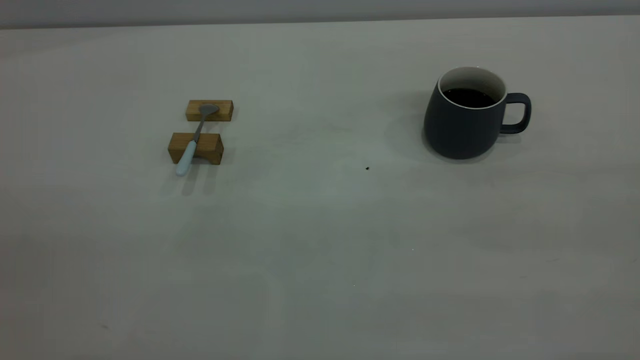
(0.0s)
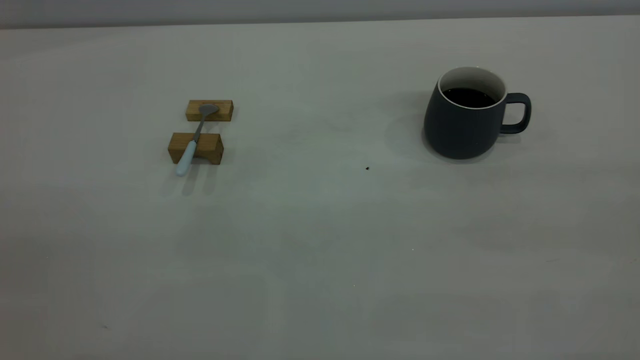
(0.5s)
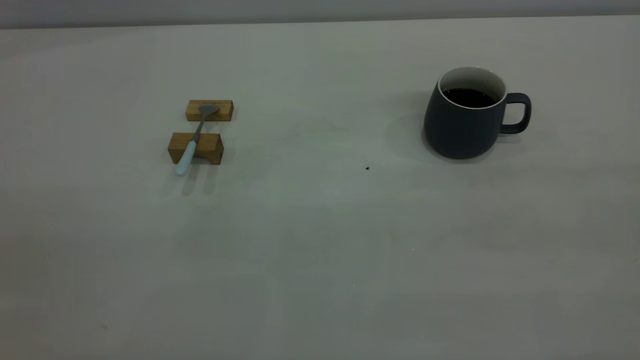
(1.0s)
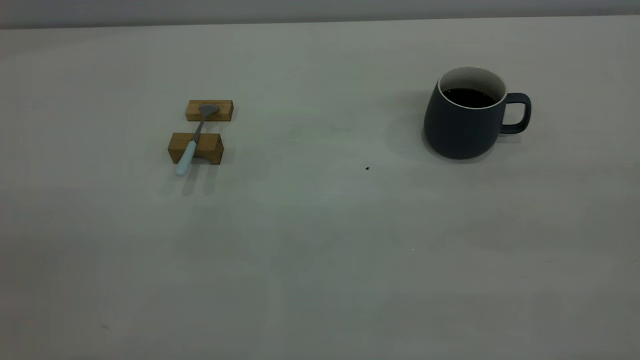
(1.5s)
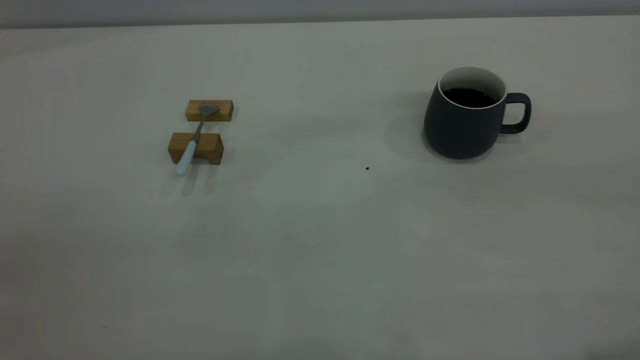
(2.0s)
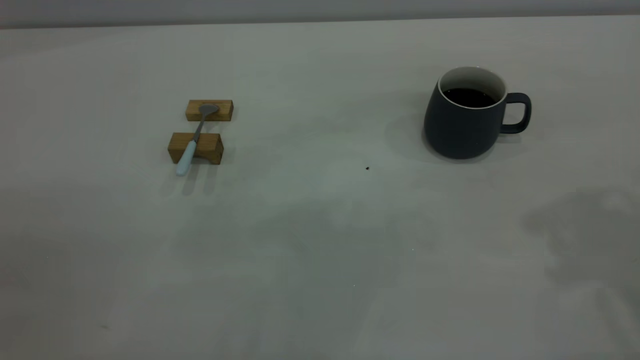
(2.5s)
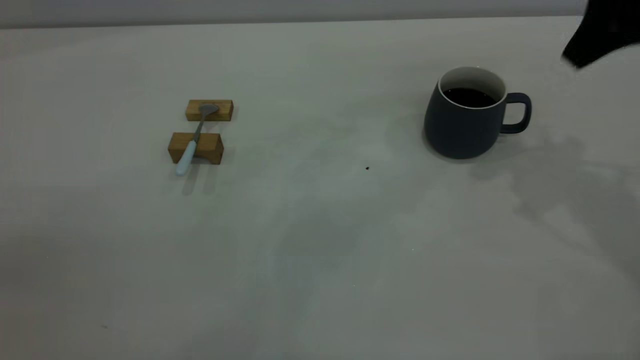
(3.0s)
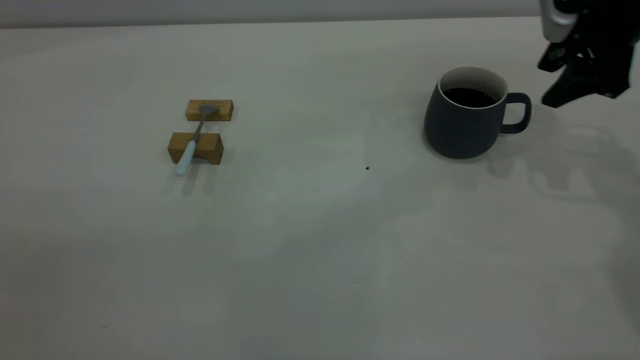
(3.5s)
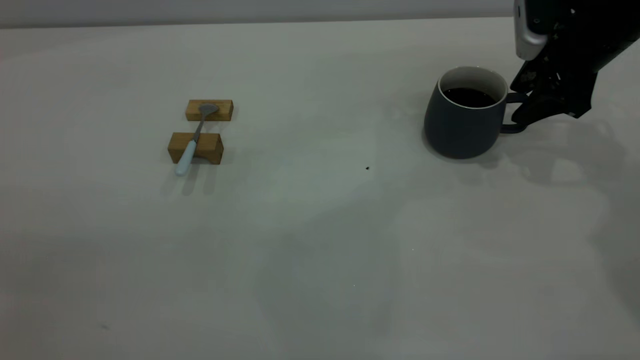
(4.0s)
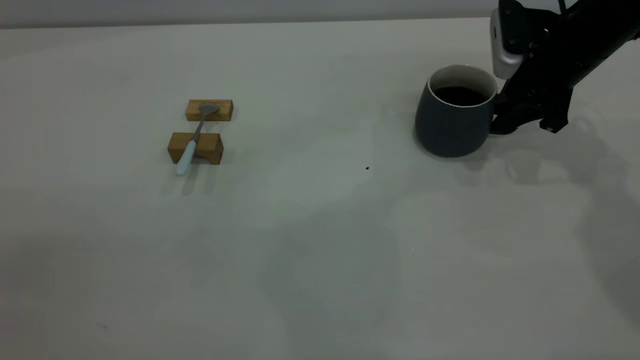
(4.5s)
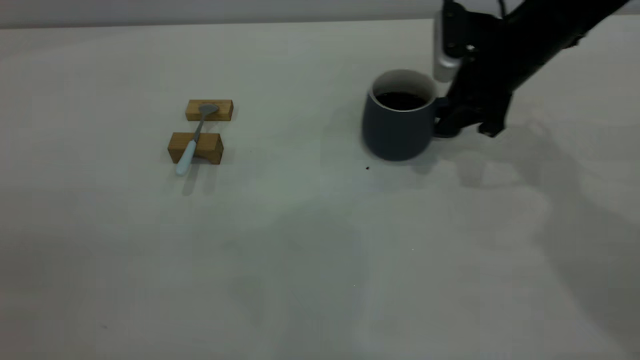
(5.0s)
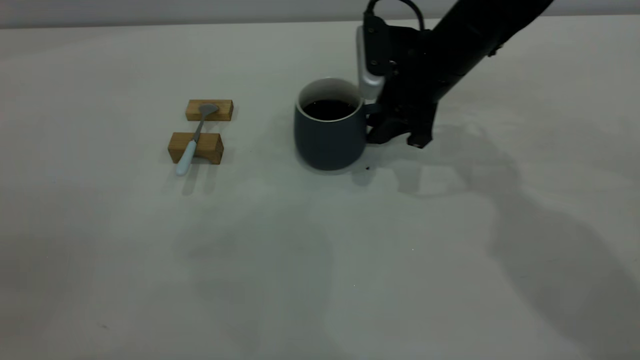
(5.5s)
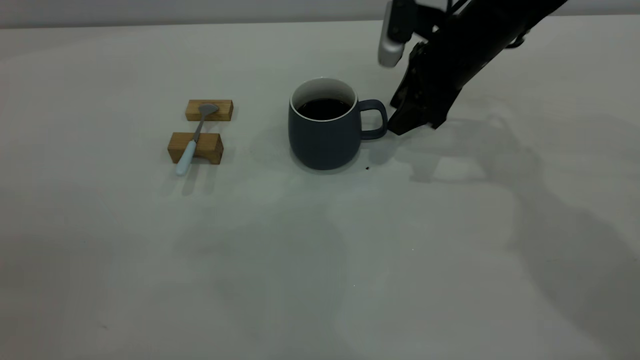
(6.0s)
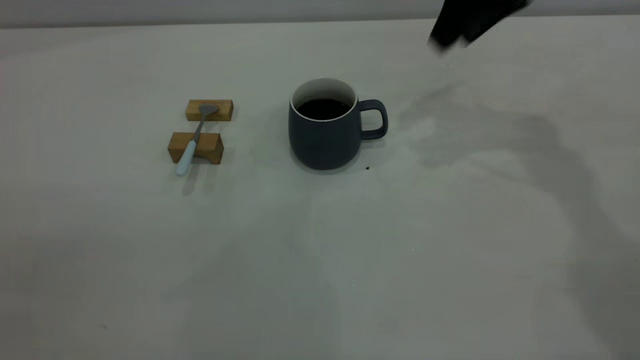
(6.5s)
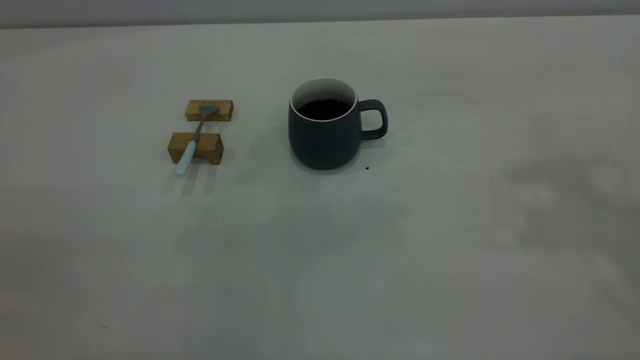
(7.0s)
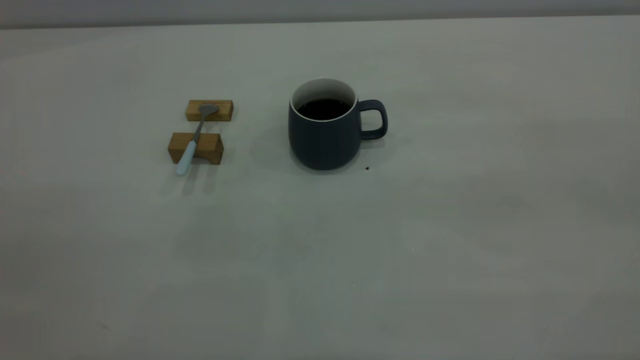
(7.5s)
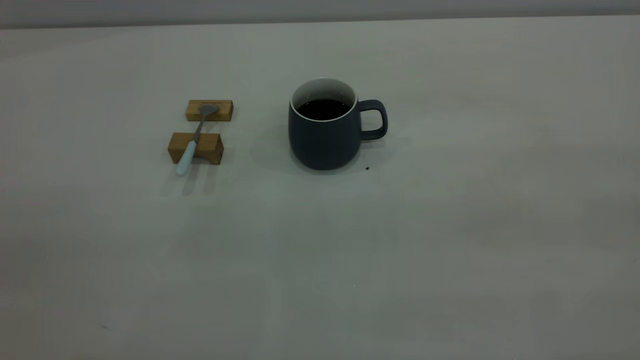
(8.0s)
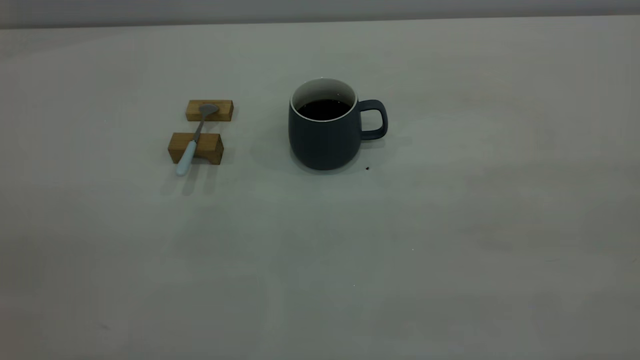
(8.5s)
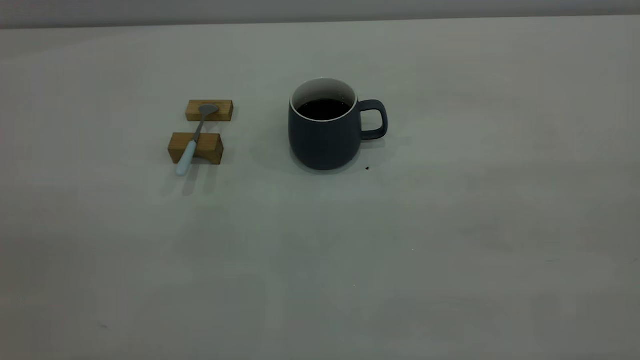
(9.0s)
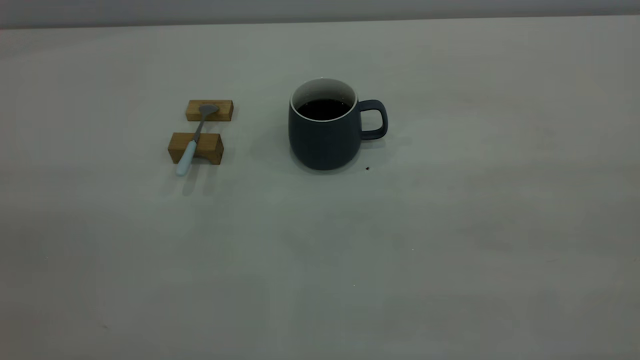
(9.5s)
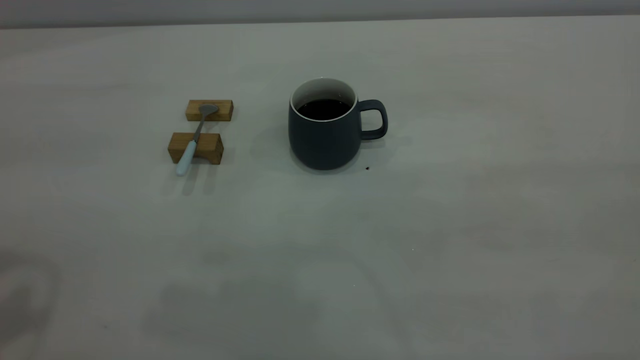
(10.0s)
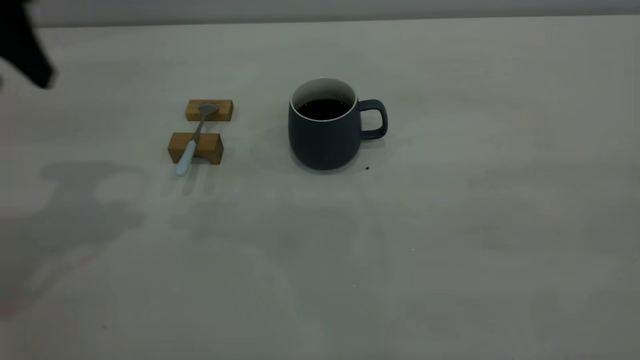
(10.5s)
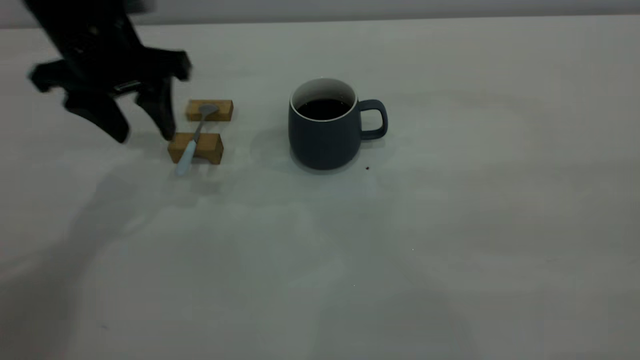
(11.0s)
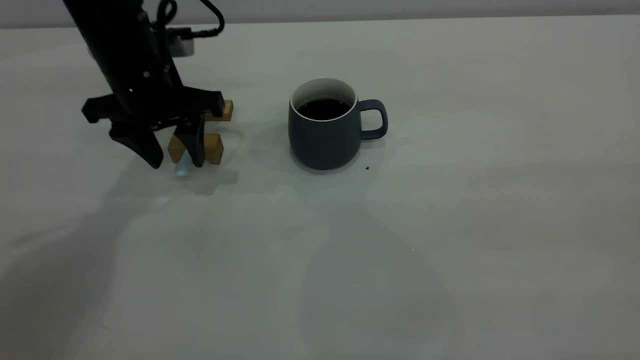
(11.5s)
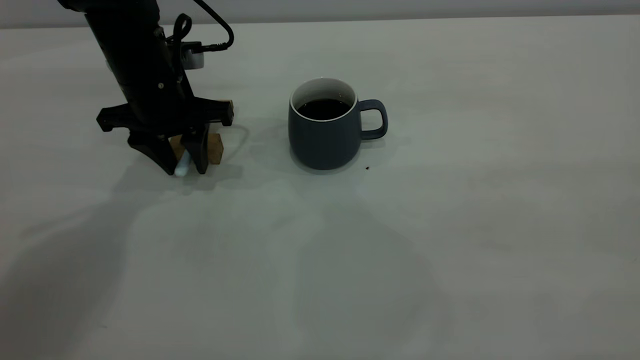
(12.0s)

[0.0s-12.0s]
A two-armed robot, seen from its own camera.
Step, 0.0s to 6.0s: Move the cup with coffee to the center of view.
2.0s to 4.0s: The right gripper is displaced forward and downward by roughly 40 cm.
4.0s to 6.0s: The right gripper goes roughly 15 cm to the left, and closes, then opens again.
6.0s to 8.0s: The right gripper goes approximately 50 cm backward and upward.
10.0s to 12.0s: The left gripper moves downward, forward and to the right, about 35 cm, and closes.

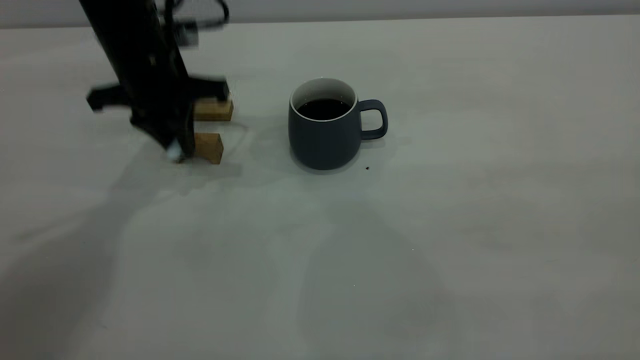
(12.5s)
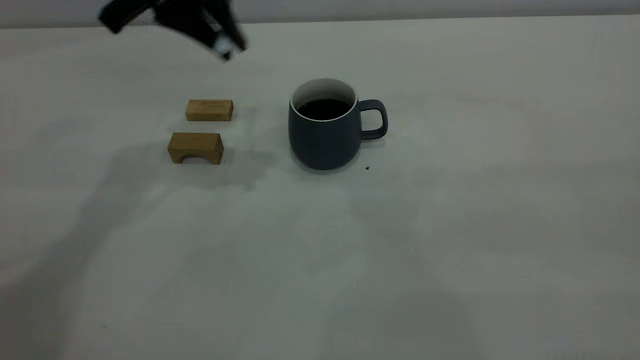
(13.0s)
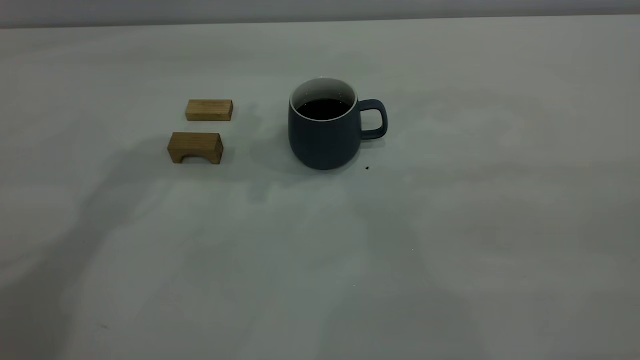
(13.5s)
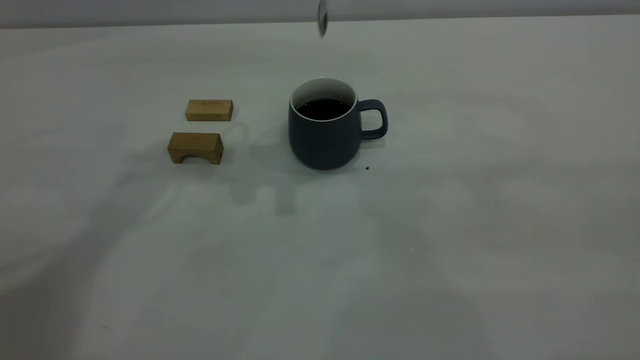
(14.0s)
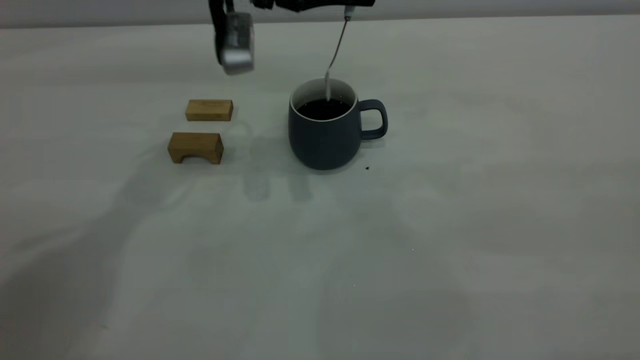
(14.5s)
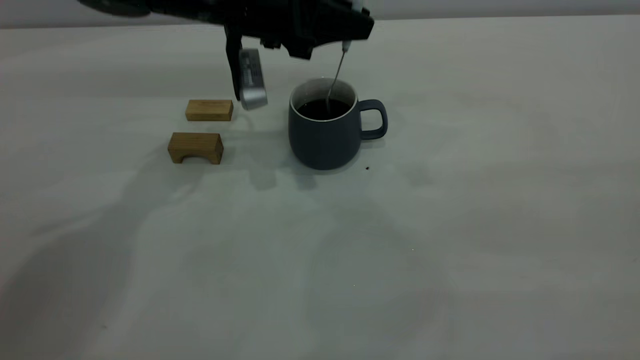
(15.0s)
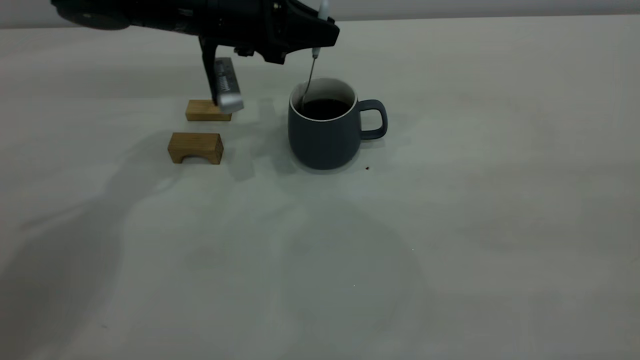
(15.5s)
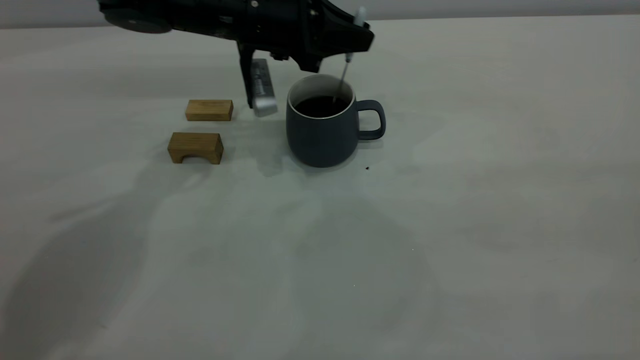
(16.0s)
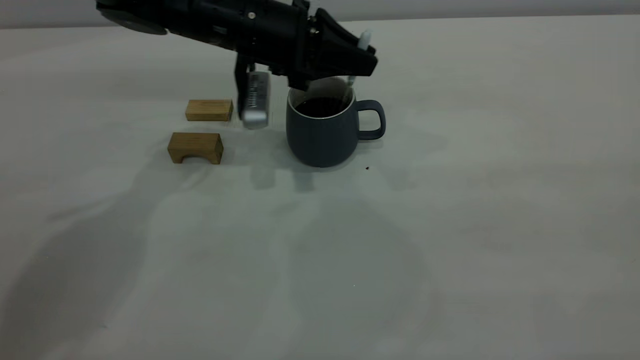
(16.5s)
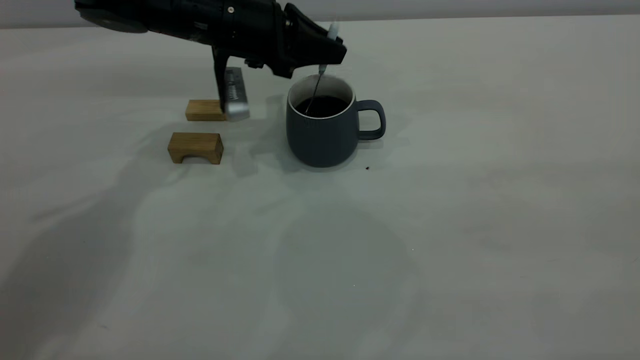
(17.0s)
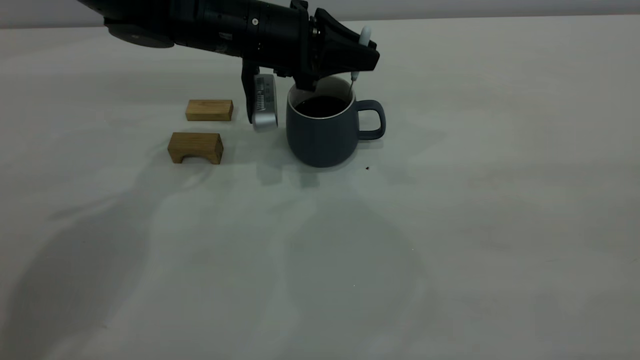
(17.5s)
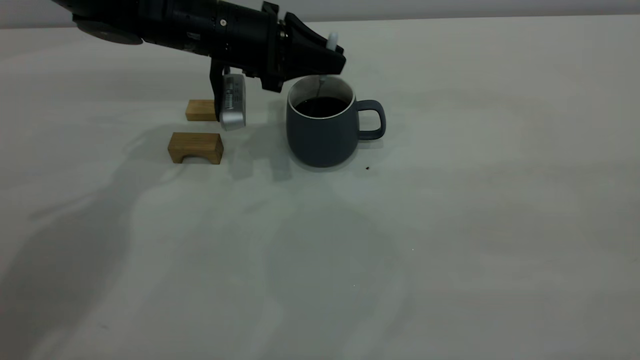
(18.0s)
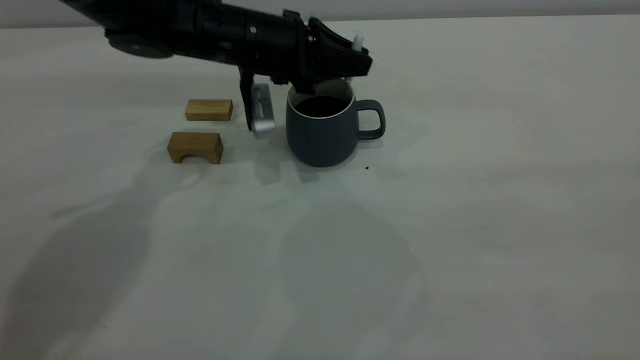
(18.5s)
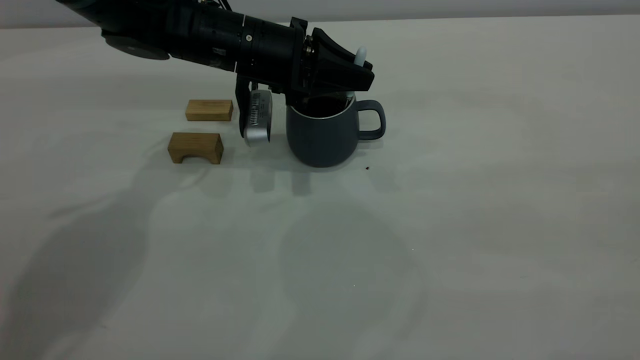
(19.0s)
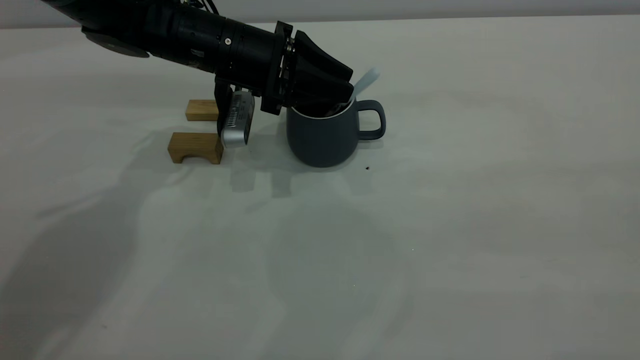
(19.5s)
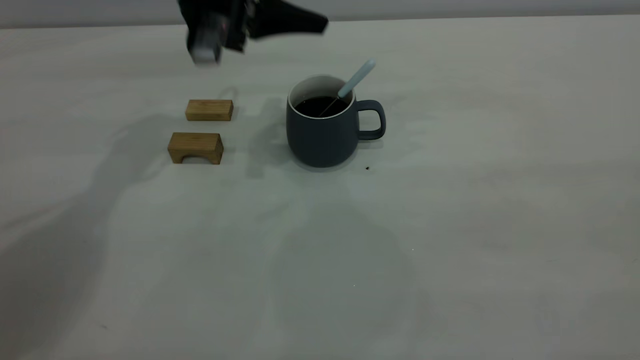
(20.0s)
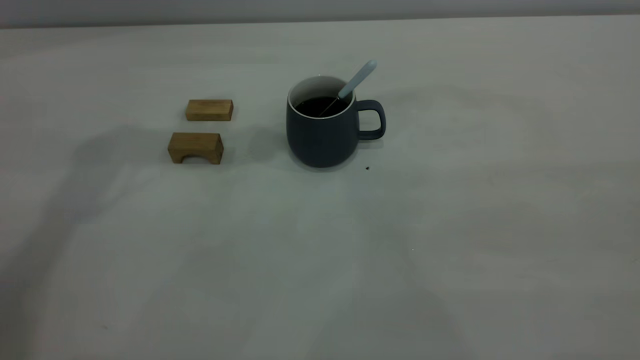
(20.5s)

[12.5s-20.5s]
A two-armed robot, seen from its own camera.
Step, 13.0s to 20.0s: Stir the coffee in the cup.
12.5s to 14.5s: The left gripper shifts about 10 cm to the right, and travels upward and back again, about 15 cm each way.
14.5s to 16.5s: The left gripper travels downward by some 10 cm.
16.5s to 18.5s: There are only small adjustments of the grippers.
18.5s to 20.5s: The left gripper travels upward by about 25 cm, and opens its fingers.
